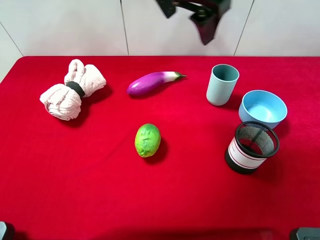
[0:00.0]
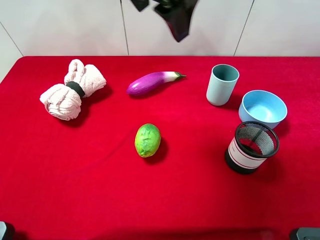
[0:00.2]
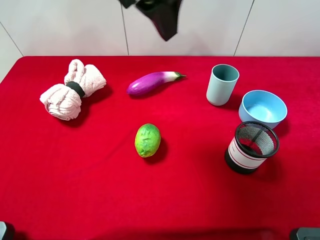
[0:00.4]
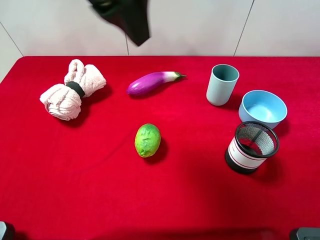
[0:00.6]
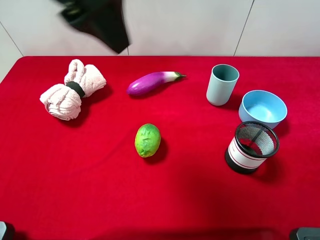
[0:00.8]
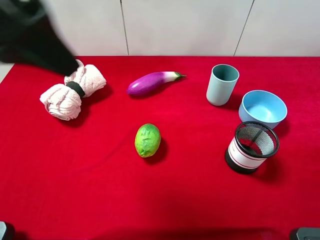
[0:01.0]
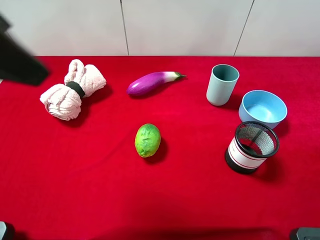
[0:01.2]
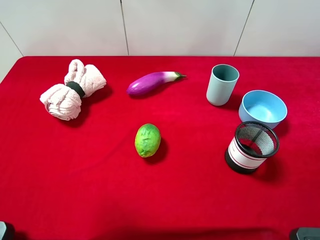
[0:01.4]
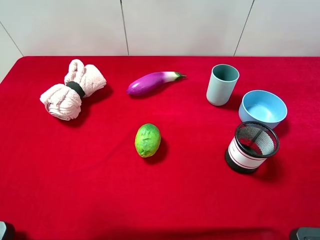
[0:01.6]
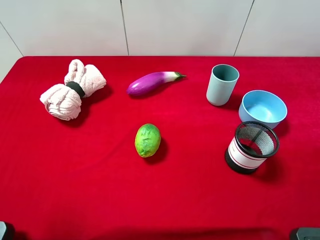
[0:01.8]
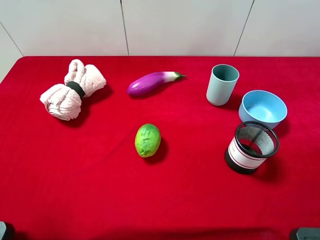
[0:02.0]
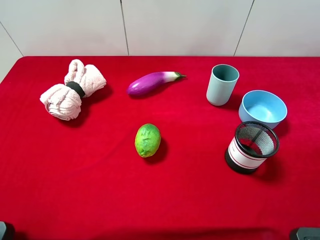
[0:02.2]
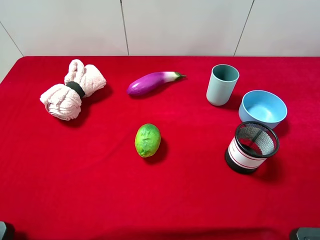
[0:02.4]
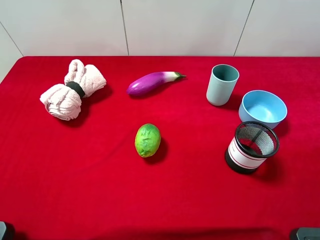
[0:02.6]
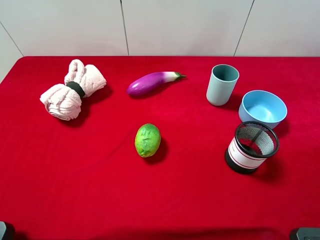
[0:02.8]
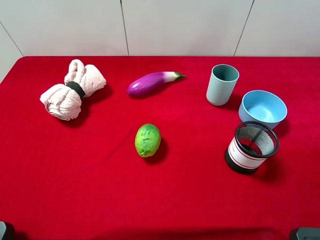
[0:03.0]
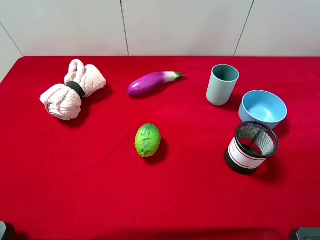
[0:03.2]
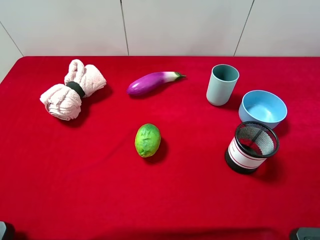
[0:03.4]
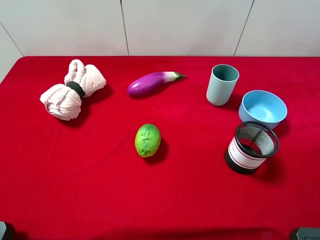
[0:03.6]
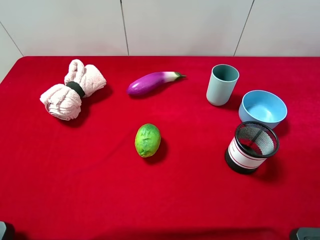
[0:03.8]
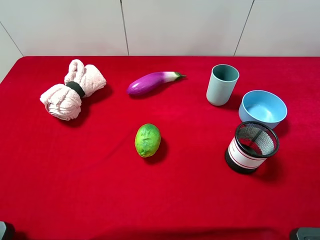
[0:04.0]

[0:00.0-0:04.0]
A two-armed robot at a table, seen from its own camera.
Task of the whole recording: the gripper move the object.
0:00.0 to 0:01.4: The left gripper goes roughly 30 cm to the left and backward.
0:02.6 to 0:04.0: The two grippers keep their place.

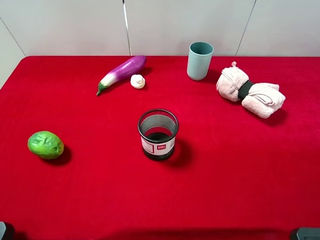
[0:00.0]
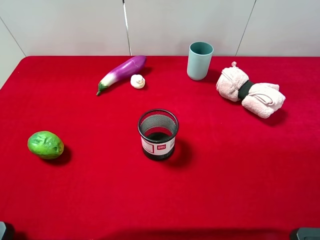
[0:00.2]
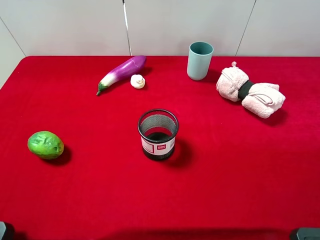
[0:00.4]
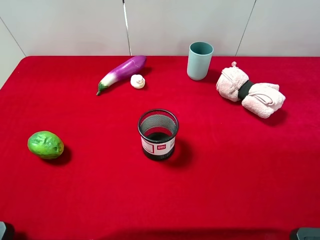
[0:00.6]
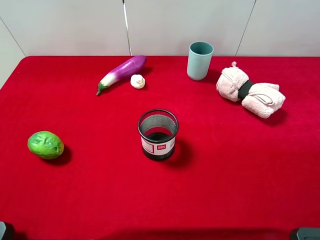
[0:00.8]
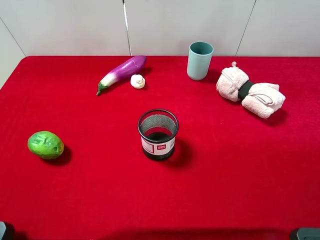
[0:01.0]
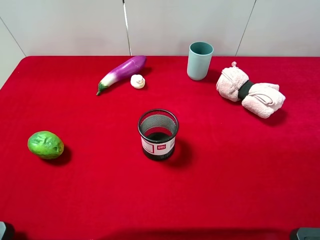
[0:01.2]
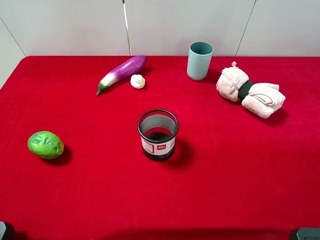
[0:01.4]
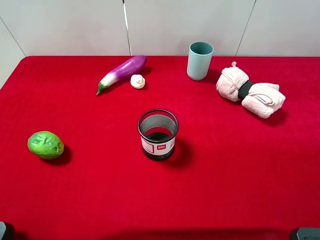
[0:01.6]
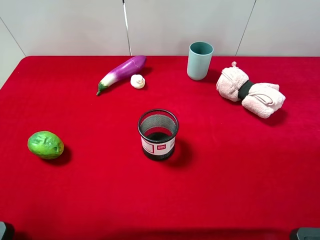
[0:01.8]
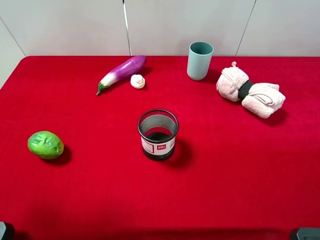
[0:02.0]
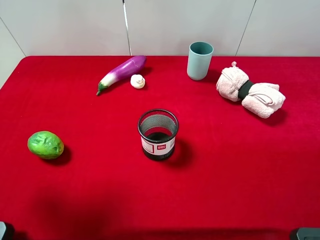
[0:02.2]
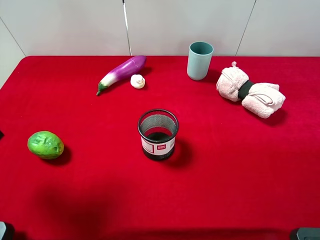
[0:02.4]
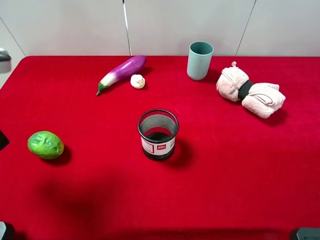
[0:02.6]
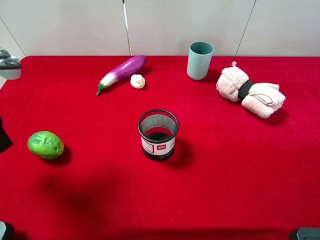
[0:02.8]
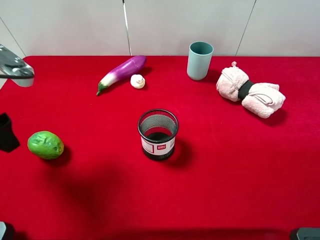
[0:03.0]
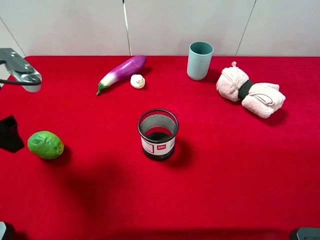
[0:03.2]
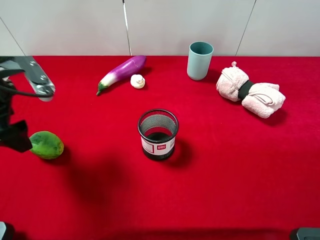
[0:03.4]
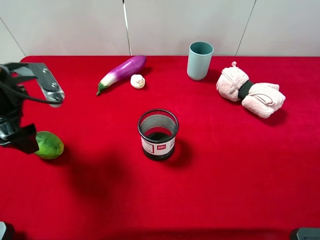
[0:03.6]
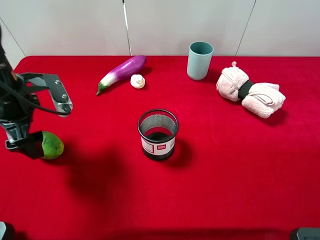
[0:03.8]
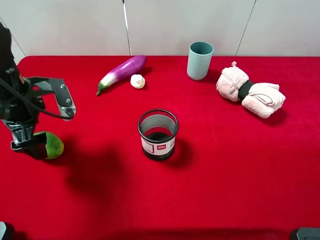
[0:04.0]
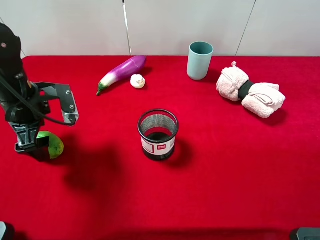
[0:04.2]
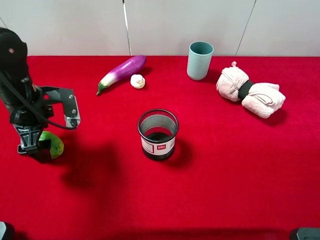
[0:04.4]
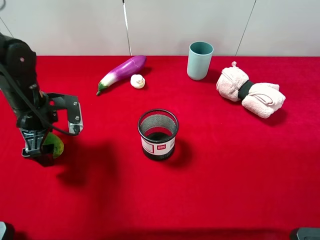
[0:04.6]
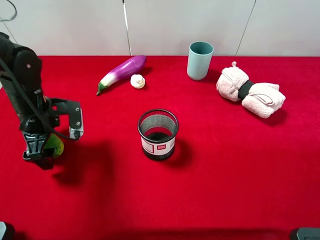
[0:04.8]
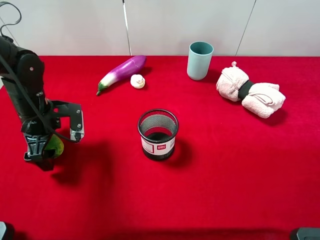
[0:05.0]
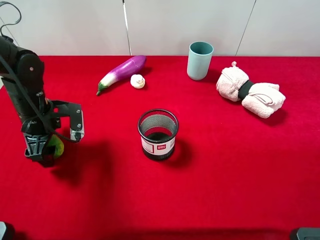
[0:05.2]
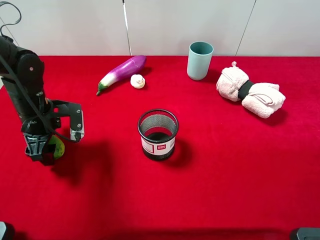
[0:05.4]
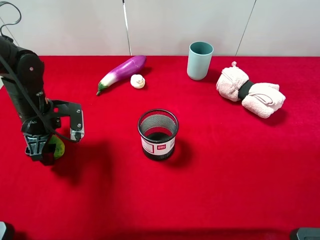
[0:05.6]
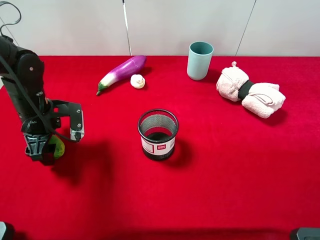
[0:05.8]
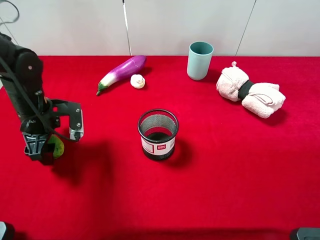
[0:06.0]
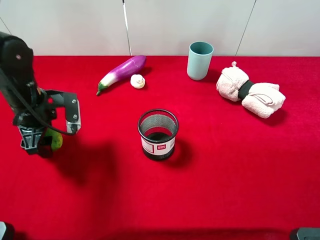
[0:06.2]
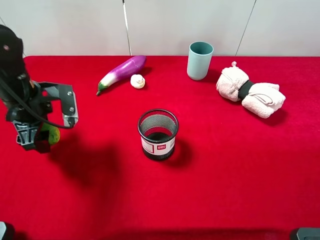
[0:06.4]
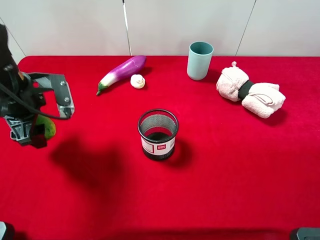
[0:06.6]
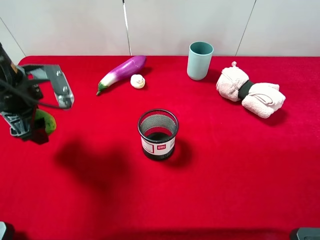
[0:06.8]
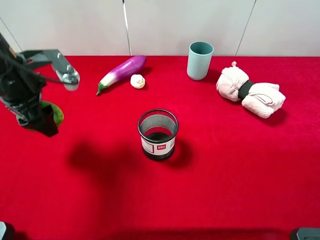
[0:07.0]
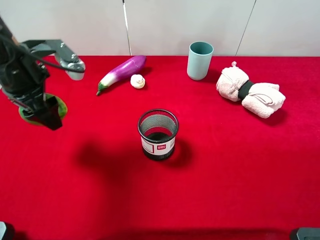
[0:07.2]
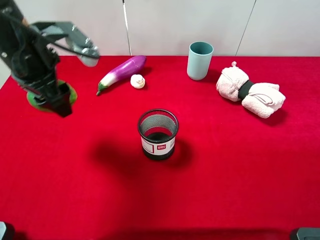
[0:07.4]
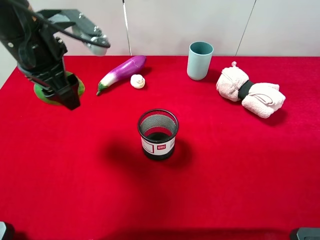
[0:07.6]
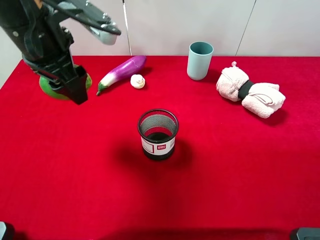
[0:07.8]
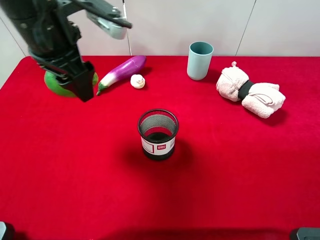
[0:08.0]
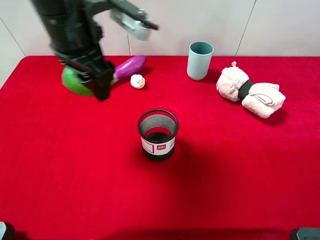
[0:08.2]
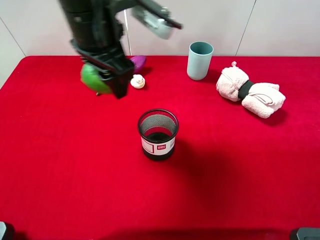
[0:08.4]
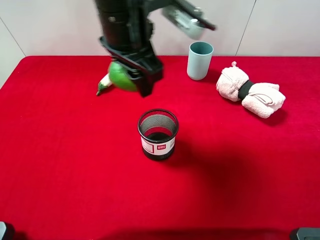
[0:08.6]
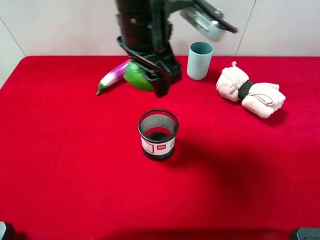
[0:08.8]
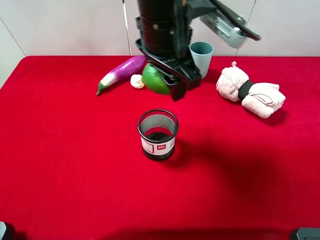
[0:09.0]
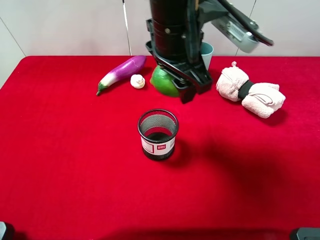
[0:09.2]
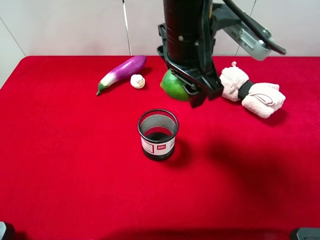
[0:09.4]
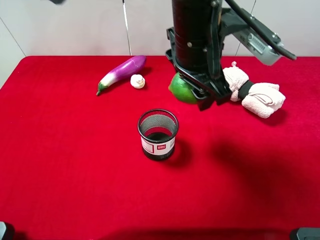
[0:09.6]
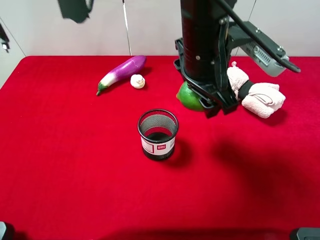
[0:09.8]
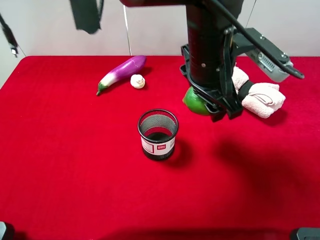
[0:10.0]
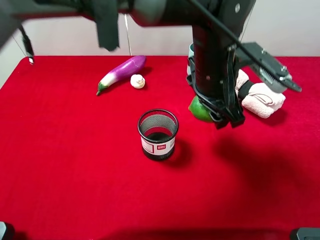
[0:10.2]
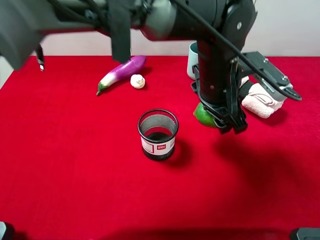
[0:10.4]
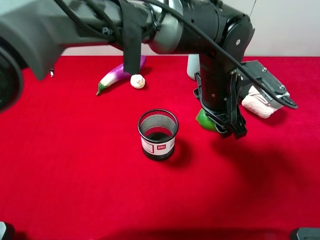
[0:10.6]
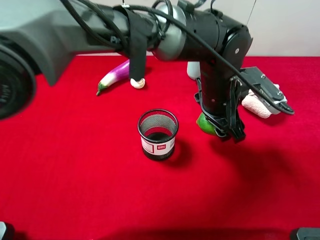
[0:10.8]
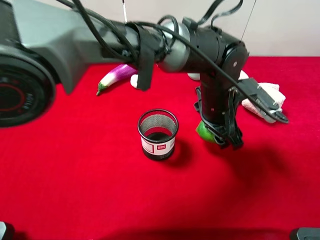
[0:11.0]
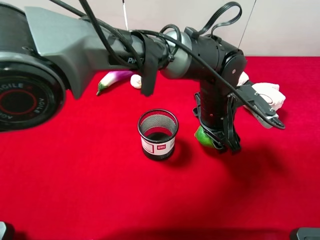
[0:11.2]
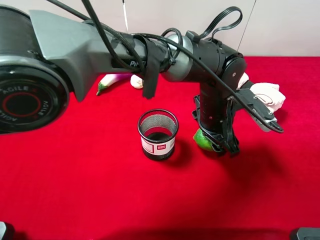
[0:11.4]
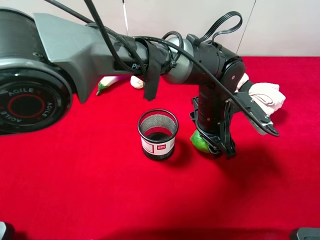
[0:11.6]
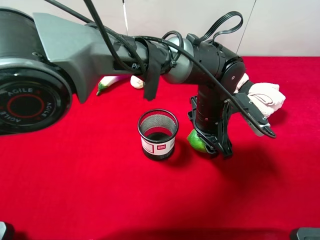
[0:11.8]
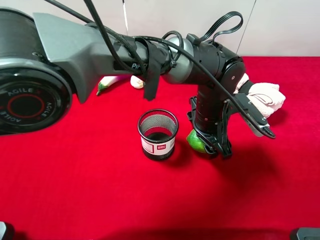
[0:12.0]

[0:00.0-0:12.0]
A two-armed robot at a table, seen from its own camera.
Task of the whole recording: the gripper move the object.
Step, 0:00.0 to 0:05.4: Grasp the green lemon with the left gripper.
0:01.6 to 0:03.0: The left gripper moves forward and downward, approximately 20 cm.
0:03.0 to 0:04.4: The left gripper travels downward and forward by roughly 10 cm.
0:04.4 to 0:06.0: The left gripper closes.
0:06.0 to 0:07.6: The left gripper moves upward and to the right, about 20 cm.
0:07.6 to 0:09.0: The left gripper shifts some 20 cm to the right.
0:09.0 to 0:10.4: The left gripper goes roughly 10 cm downward and to the right.
0:10.4 to 0:12.0: The left gripper is displaced downward by about 10 cm.

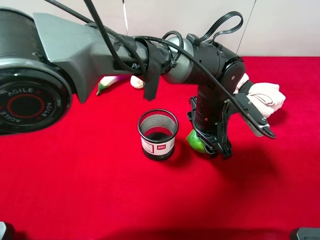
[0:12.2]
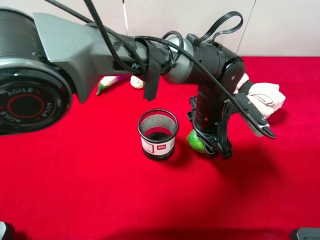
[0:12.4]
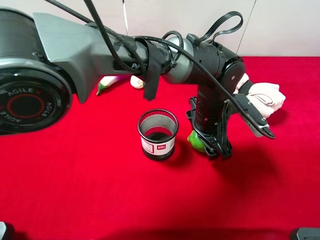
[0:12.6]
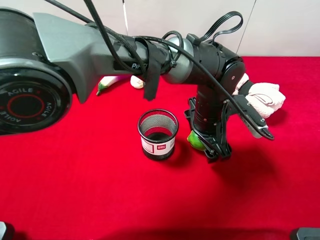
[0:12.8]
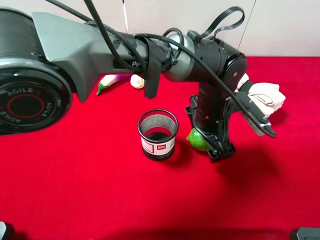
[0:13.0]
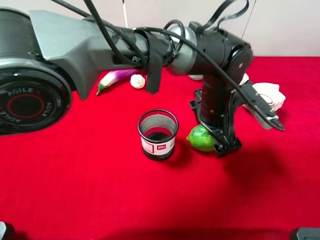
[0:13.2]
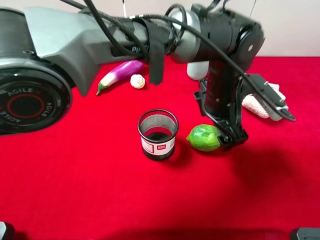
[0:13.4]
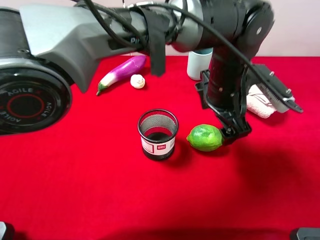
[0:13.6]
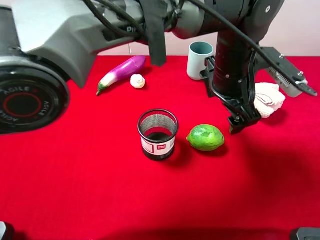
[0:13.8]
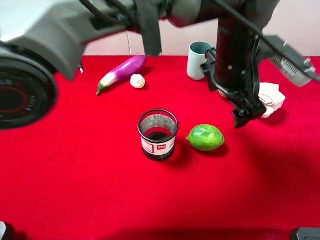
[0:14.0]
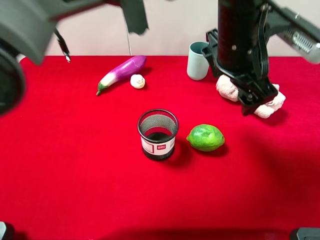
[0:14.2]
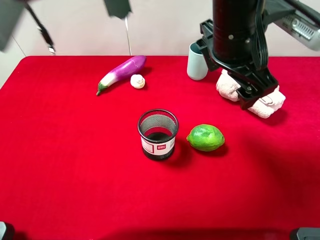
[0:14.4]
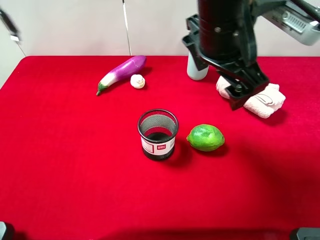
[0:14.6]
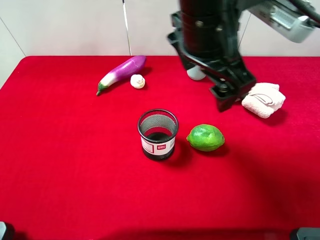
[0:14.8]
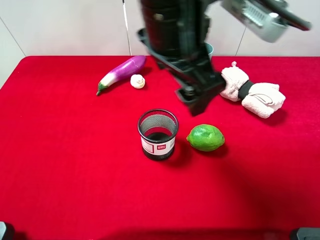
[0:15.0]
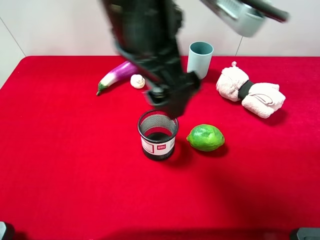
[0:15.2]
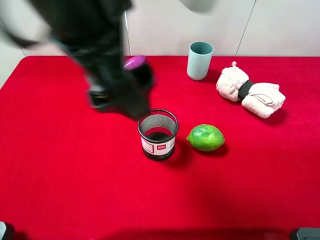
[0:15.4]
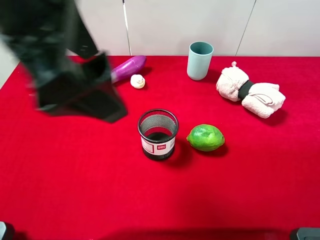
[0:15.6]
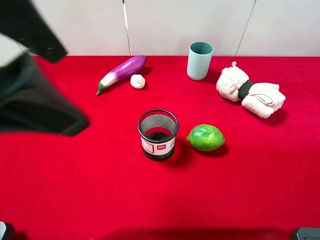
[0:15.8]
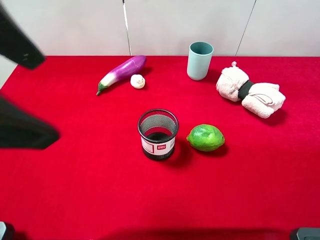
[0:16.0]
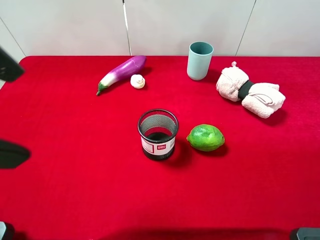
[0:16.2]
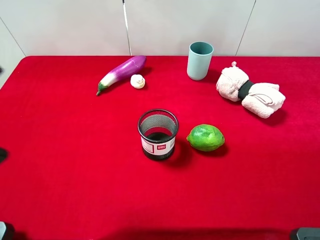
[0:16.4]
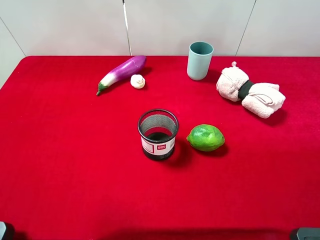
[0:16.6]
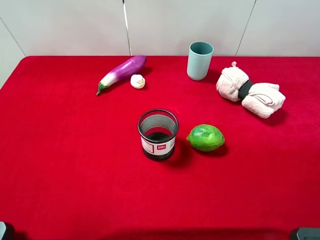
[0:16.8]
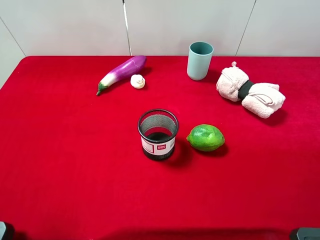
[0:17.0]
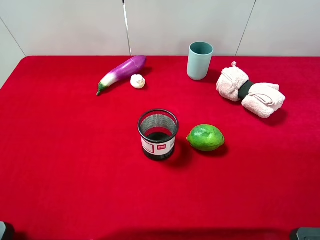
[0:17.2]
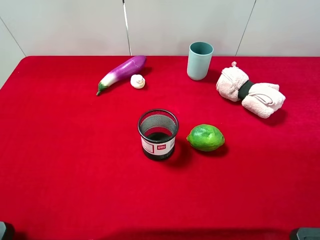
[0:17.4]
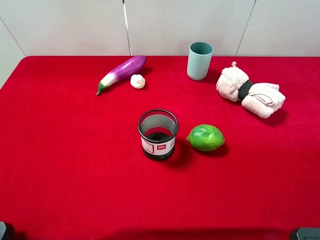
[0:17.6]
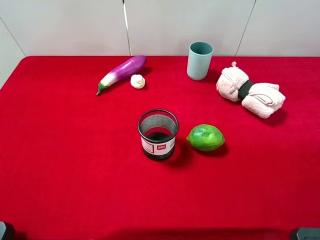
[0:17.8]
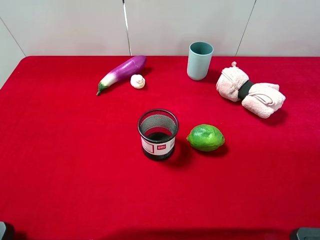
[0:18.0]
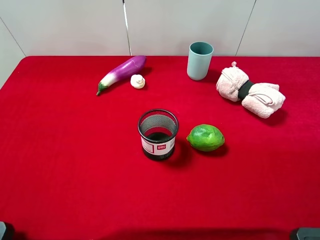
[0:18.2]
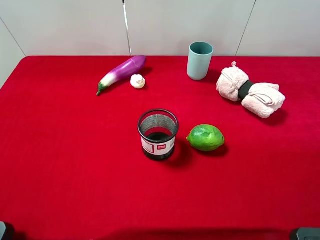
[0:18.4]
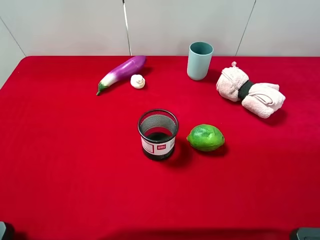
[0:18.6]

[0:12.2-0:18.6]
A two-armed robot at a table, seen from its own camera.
Task of the whole recording: the gripper move the object.
0:12.2 to 0:13.8: The left gripper heads upward, covering about 10 cm, and opens up.
0:13.8 to 0:15.4: The left gripper moves to the left, upward and backward, roughly 25 cm.
0:15.4 to 0:17.0: The left gripper is displaced to the left and backward by some 25 cm.
